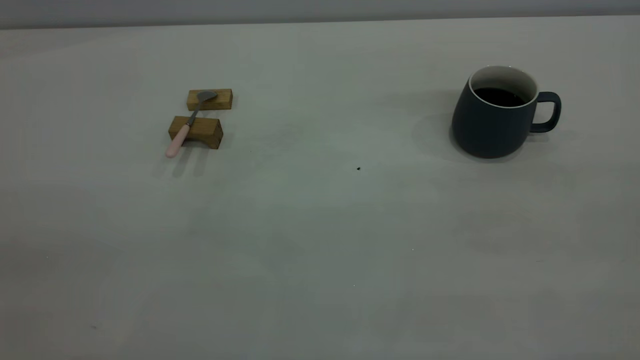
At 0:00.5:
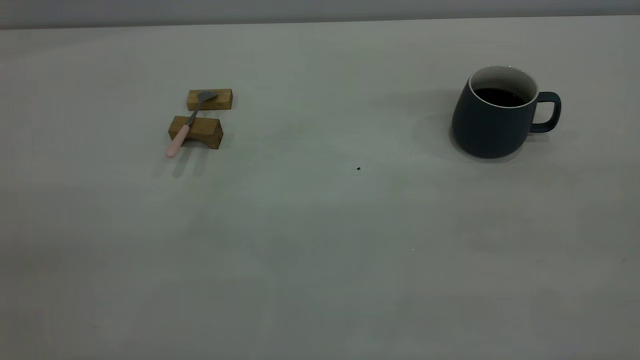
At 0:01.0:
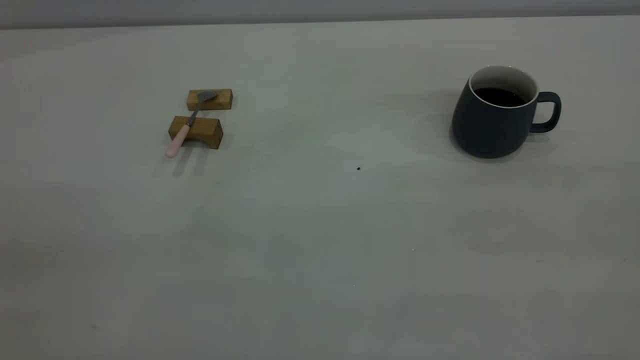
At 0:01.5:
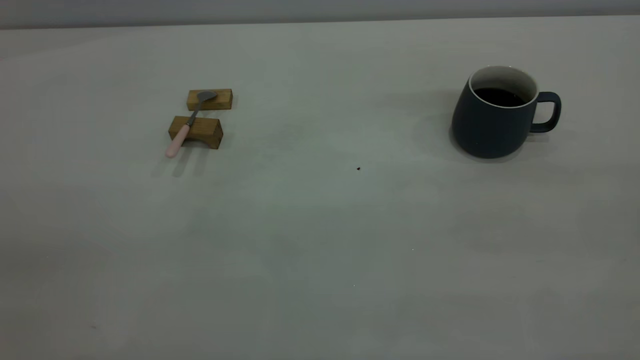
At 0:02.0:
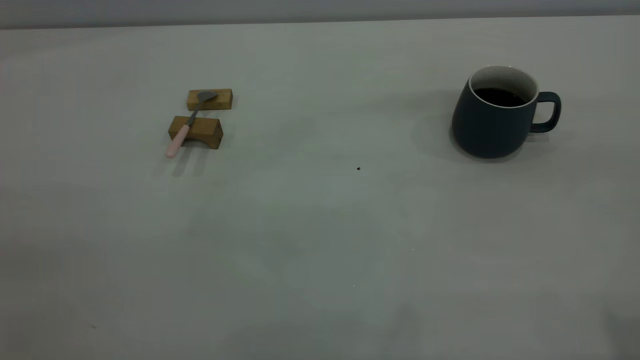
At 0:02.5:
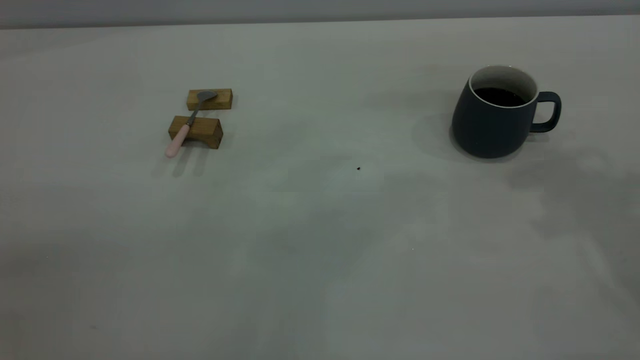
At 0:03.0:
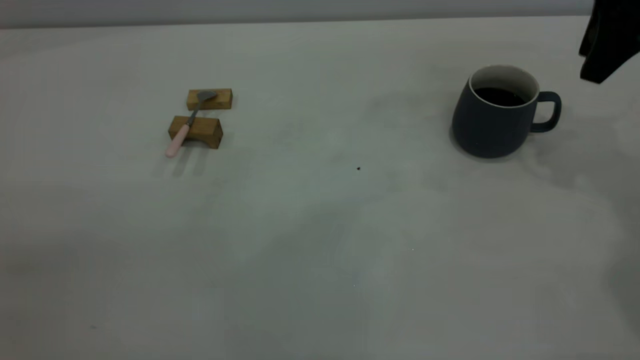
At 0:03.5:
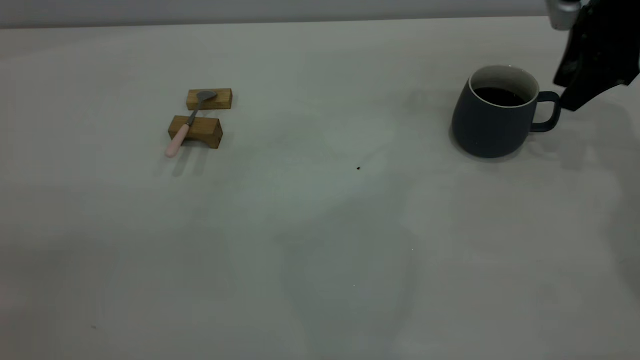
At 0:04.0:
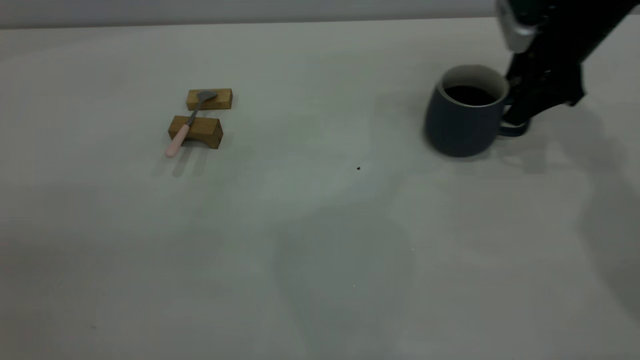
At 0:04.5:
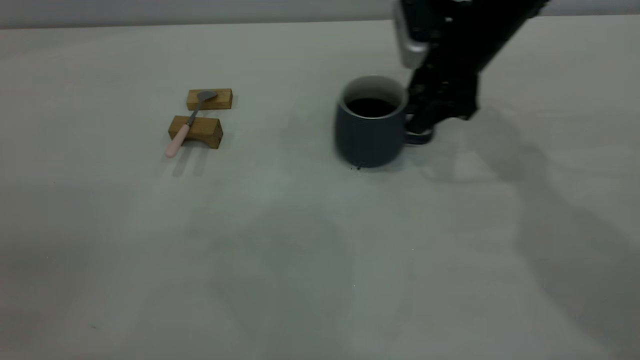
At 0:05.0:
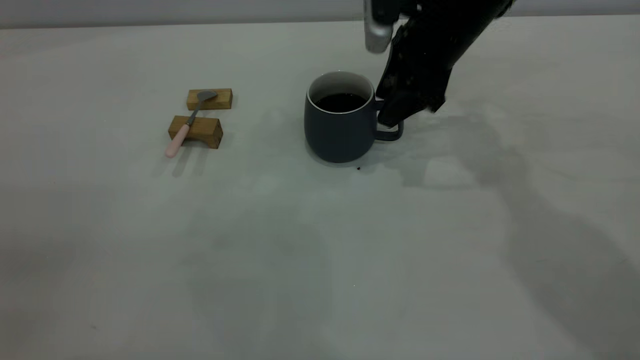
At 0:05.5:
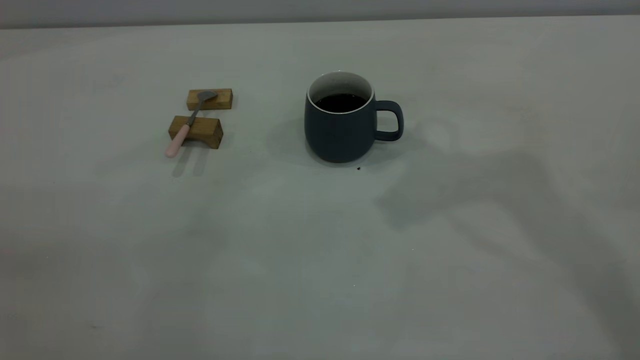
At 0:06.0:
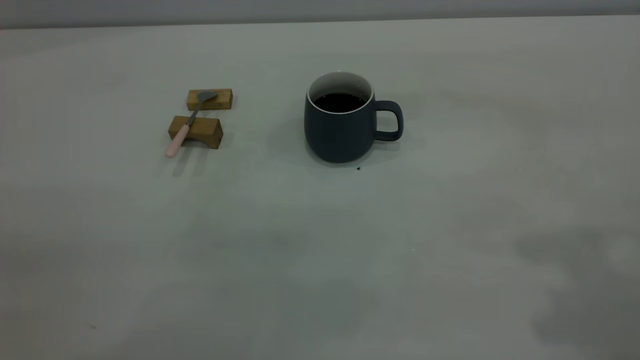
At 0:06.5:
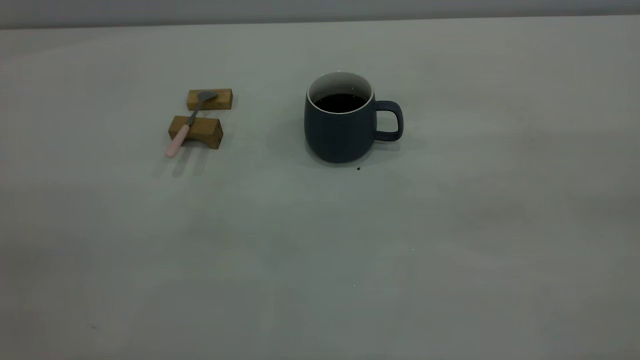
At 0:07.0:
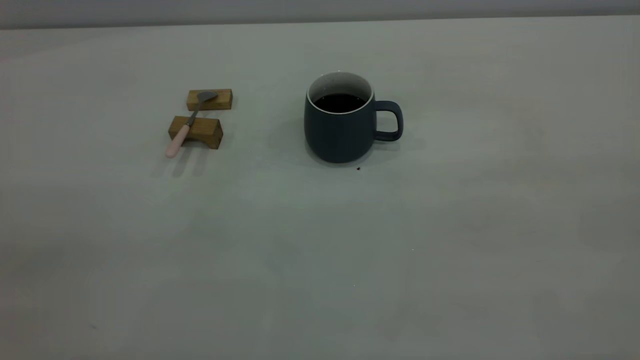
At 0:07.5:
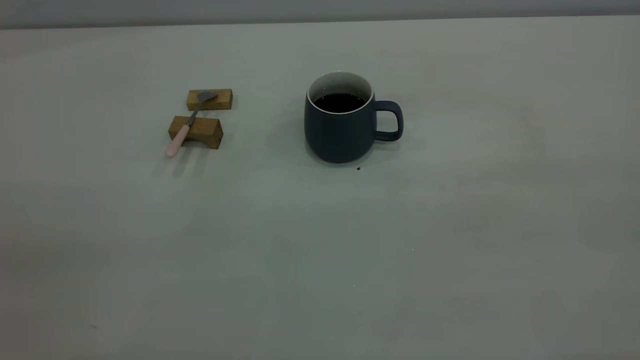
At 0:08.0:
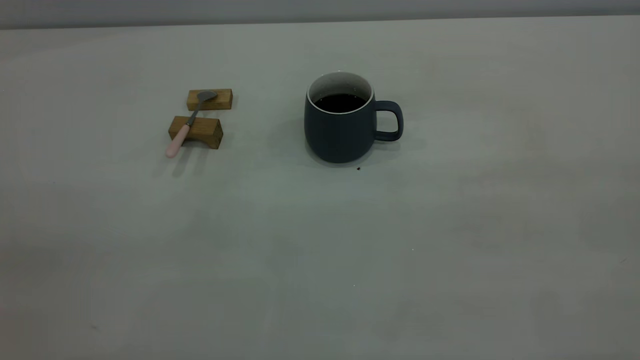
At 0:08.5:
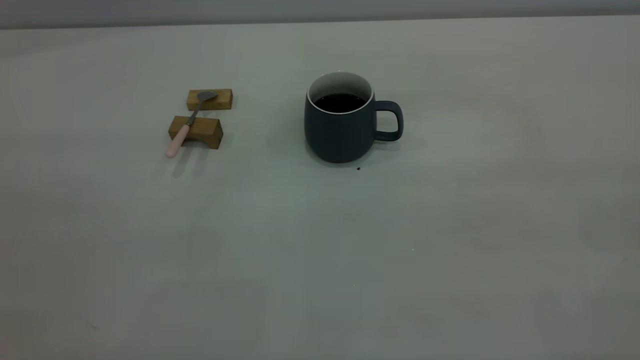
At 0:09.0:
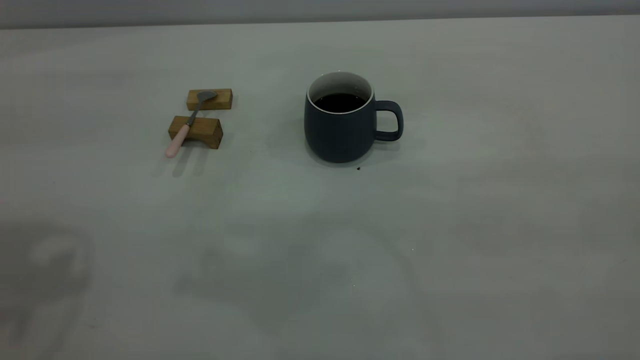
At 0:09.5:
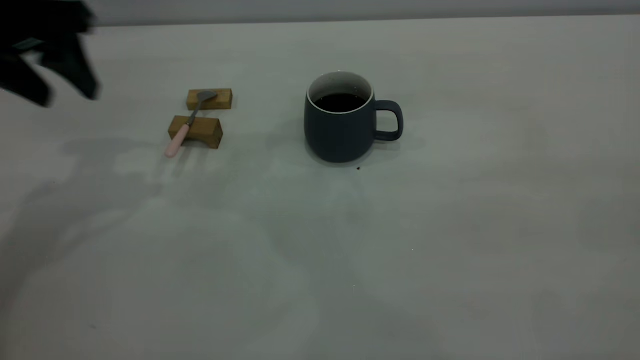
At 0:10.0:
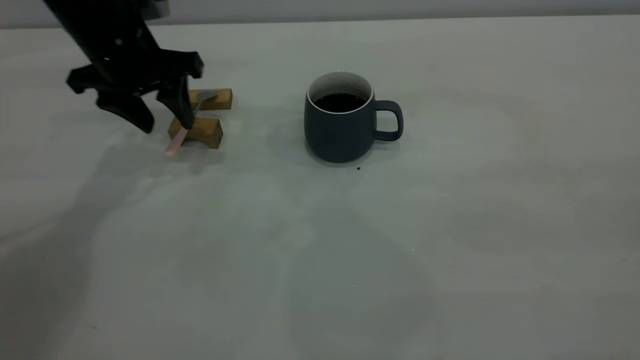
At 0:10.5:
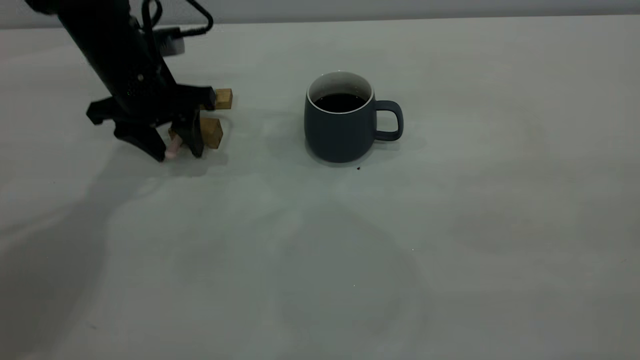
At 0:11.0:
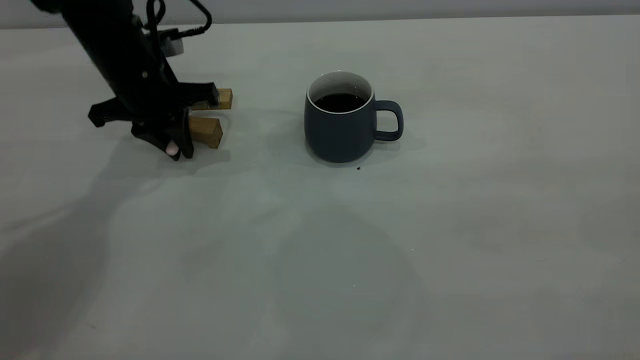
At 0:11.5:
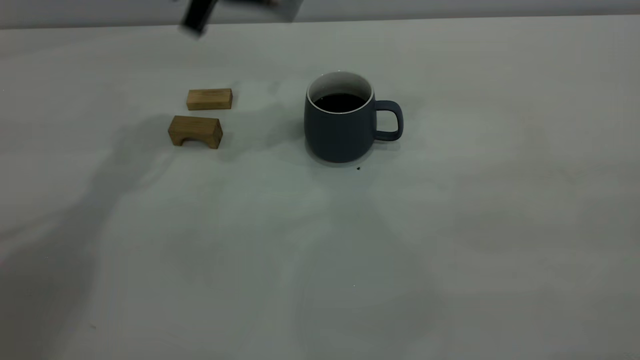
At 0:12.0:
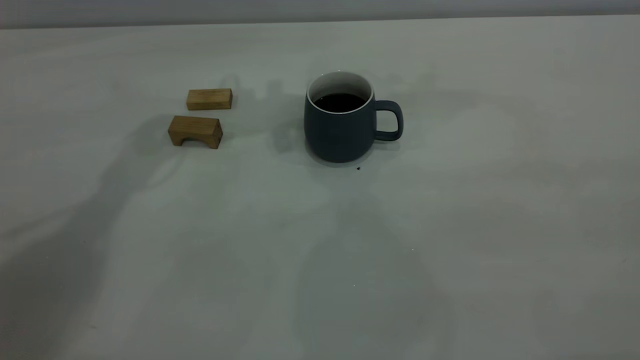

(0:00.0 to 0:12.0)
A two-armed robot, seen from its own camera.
Step, 0:00.0 - 0:05.0: Move the cup with coffee to the center of view.
Step, 0:05.5 - 0:11.0: Pick up the spoon.
0:02.0 - 0:04.0: The right gripper is displaced forward and downward by approximately 40 cm.
0:04.0 - 0:06.0: The right gripper shifts about 40 cm upward and backward.
0:08.0 - 0:10.0: The left gripper travels forward and downward by some 50 cm, and opens its fingers.
0:10.0 - 0:12.0: The left gripper shifts approximately 15 cm to the right and upward, and closes its fingers.

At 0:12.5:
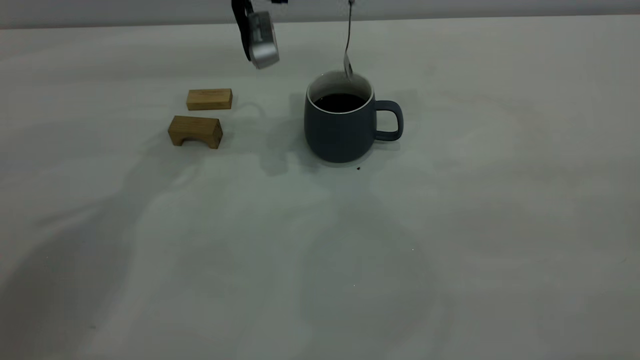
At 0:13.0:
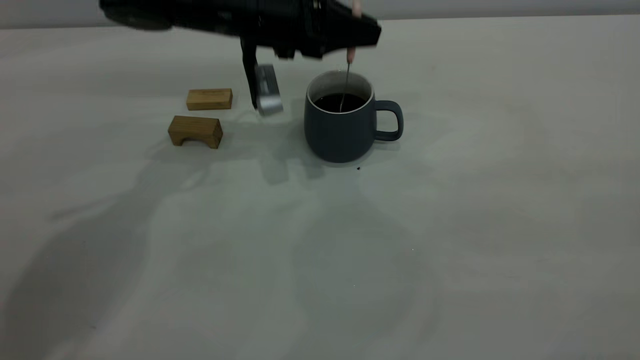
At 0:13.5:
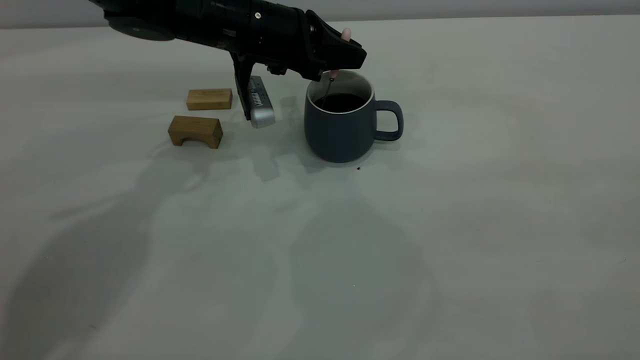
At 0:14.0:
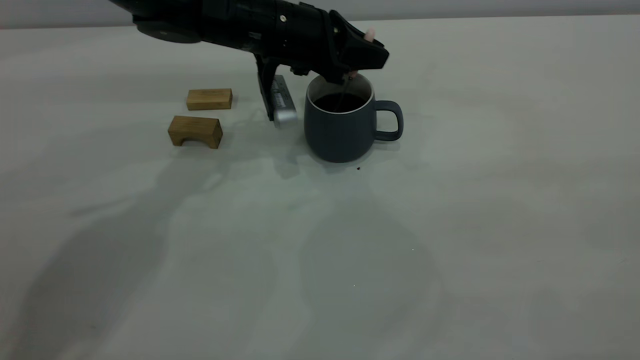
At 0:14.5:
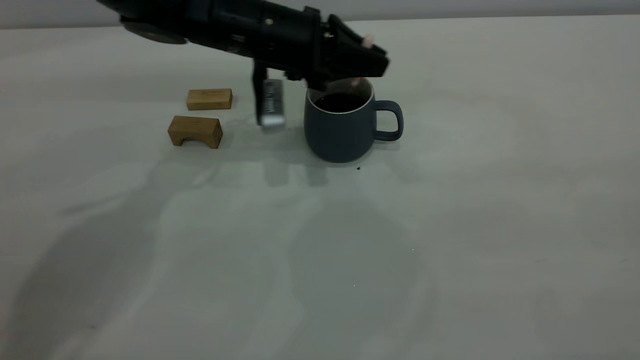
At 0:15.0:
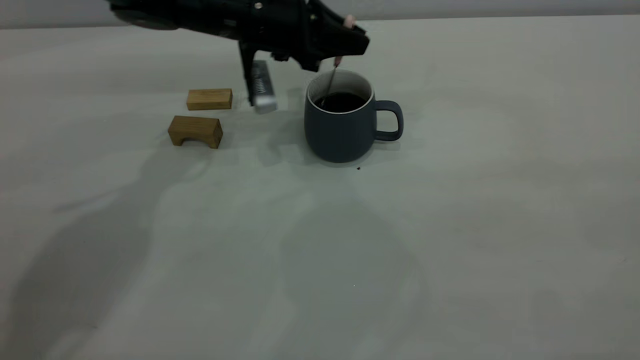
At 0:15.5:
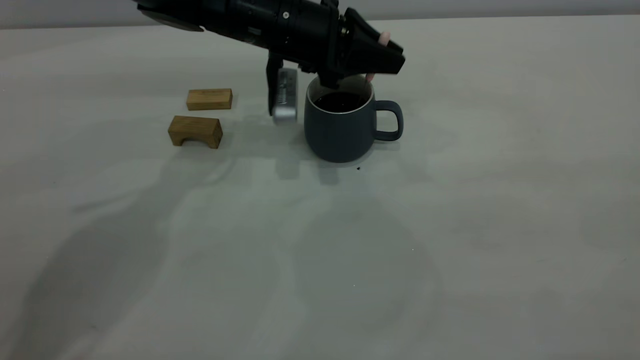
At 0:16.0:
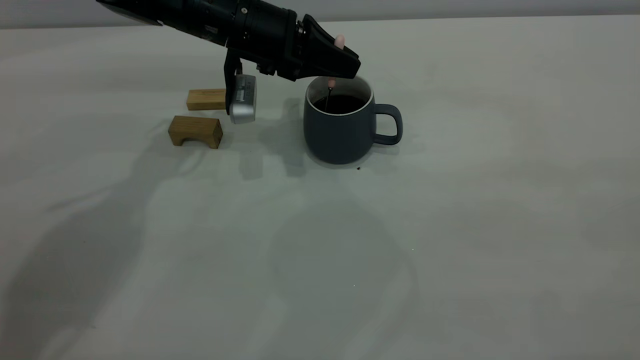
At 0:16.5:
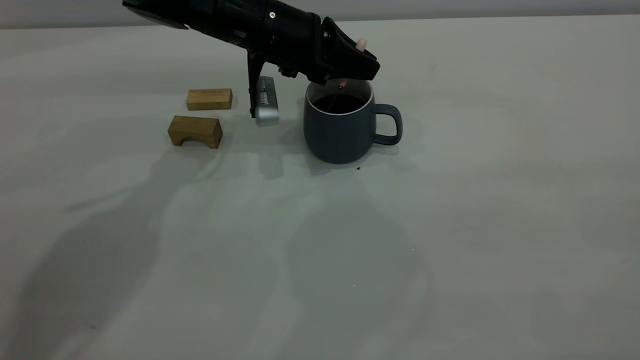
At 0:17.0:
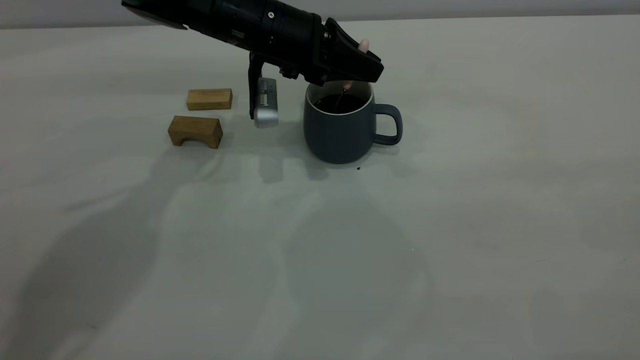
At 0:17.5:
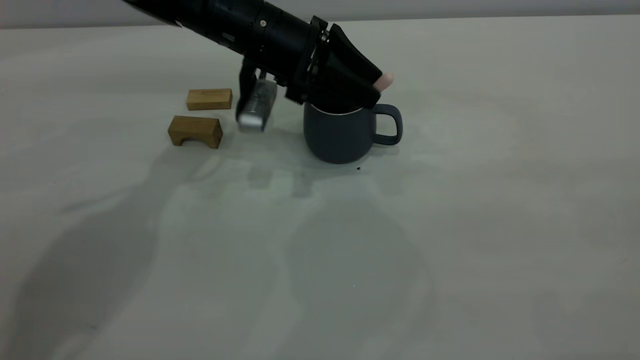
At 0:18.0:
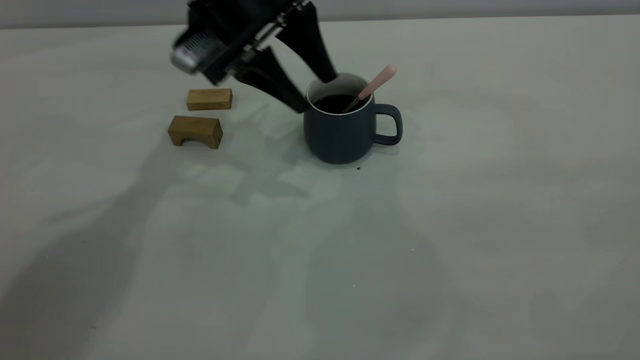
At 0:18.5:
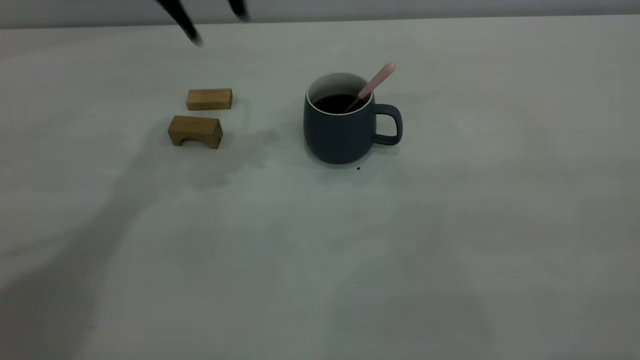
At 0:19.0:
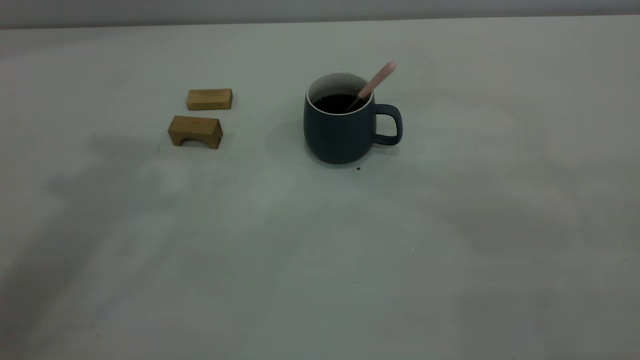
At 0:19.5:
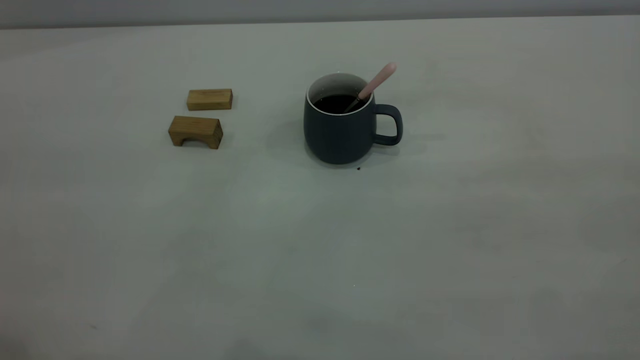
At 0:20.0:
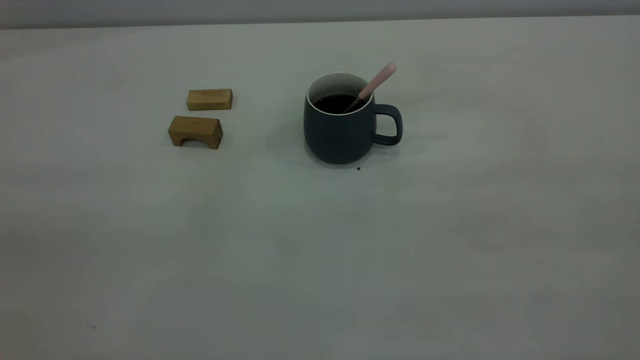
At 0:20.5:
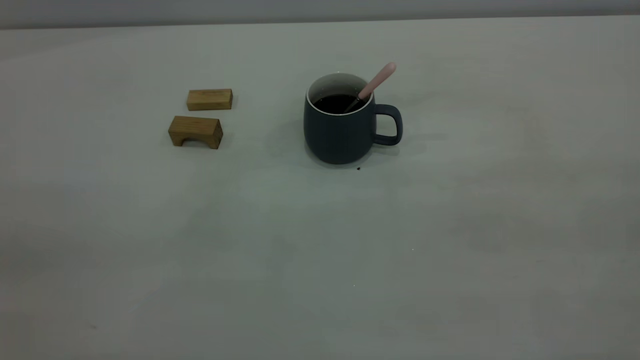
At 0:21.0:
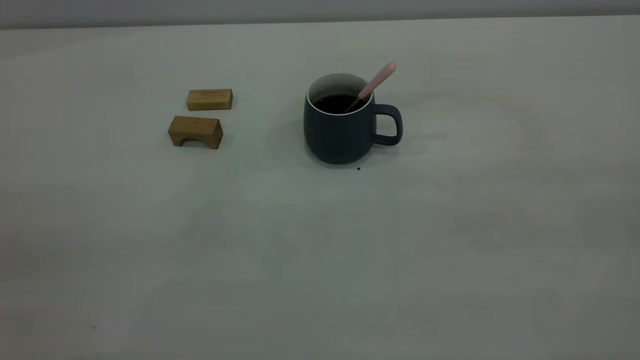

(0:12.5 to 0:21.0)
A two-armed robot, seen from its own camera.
Step, 0:12.5 - 0:18.0: Stir the coffee in the cup.
0:12.5 - 0:14.5: The left gripper travels downward by some 5 cm.
0:14.5 - 0:16.5: The grippers make only small movements.
0:16.5 - 0:19.0: The left gripper travels upward and backward by some 40 cm, and opens up.
